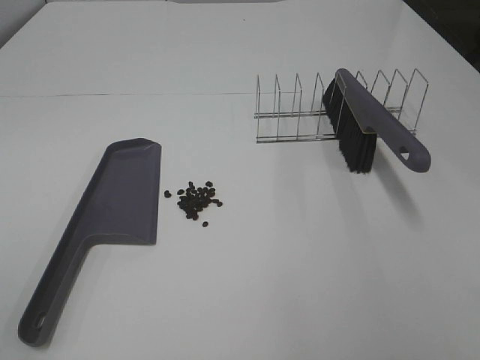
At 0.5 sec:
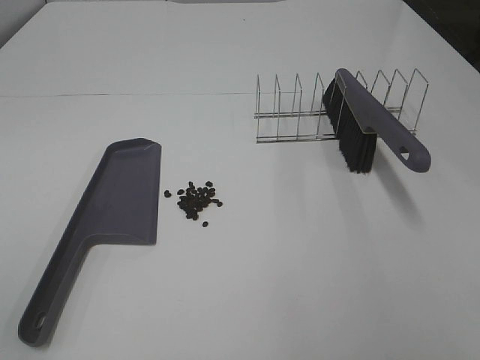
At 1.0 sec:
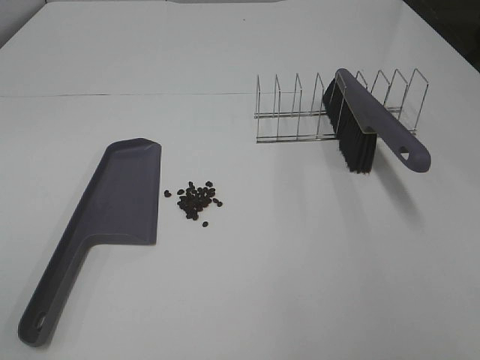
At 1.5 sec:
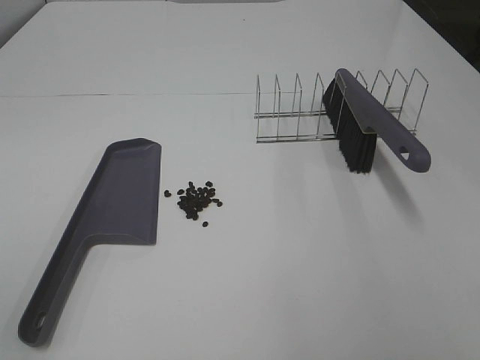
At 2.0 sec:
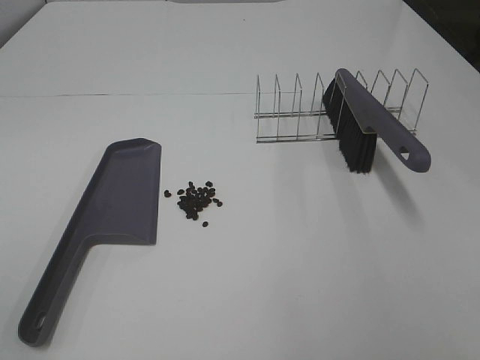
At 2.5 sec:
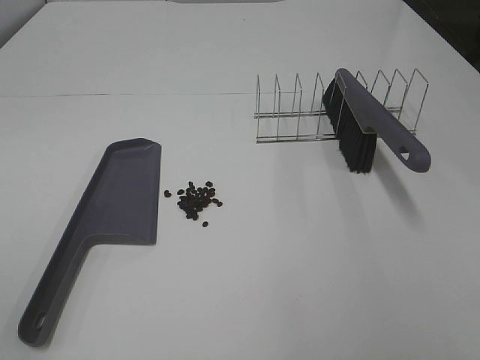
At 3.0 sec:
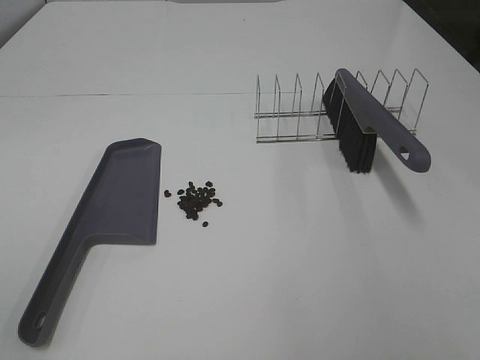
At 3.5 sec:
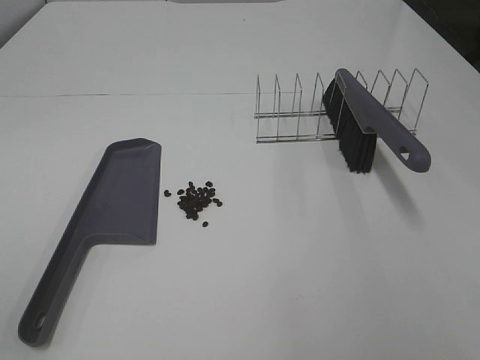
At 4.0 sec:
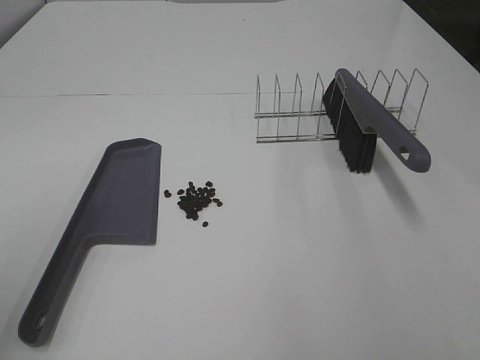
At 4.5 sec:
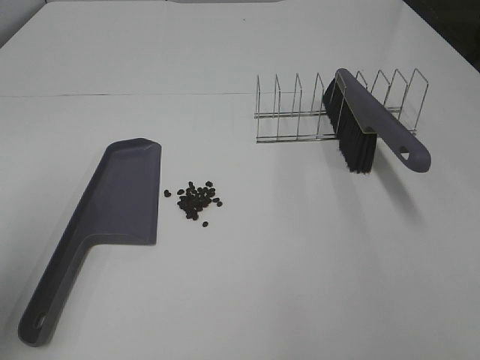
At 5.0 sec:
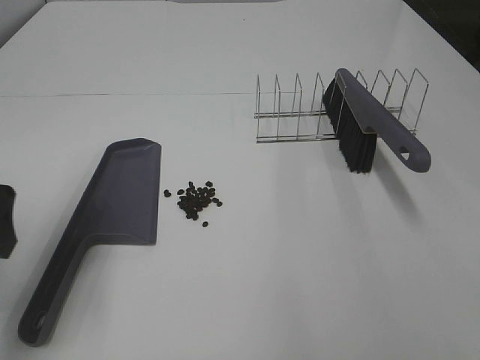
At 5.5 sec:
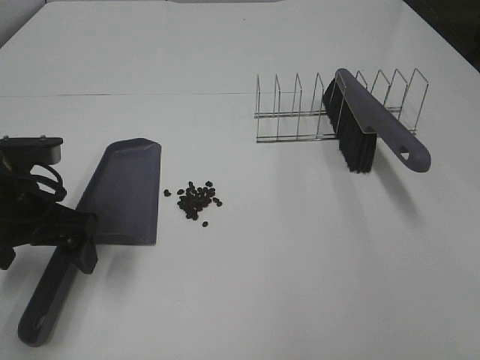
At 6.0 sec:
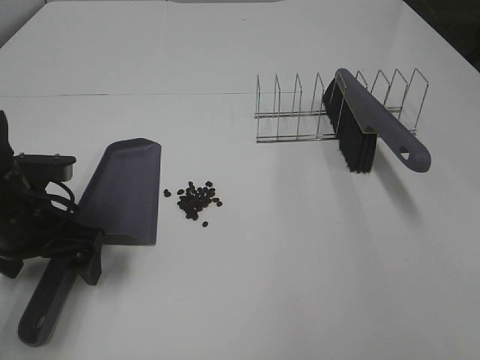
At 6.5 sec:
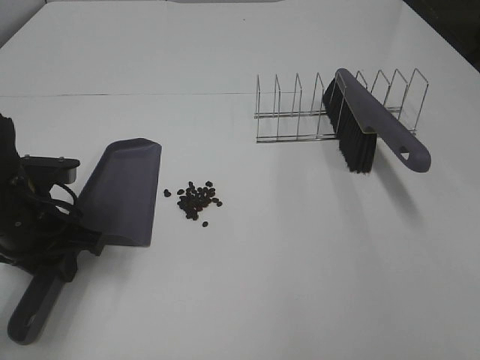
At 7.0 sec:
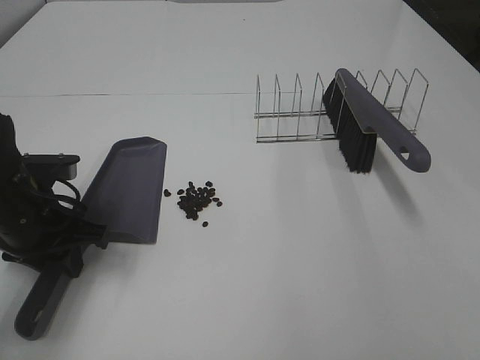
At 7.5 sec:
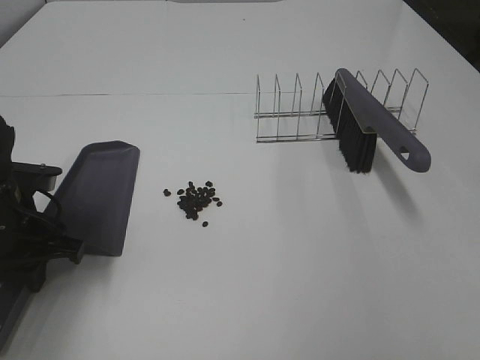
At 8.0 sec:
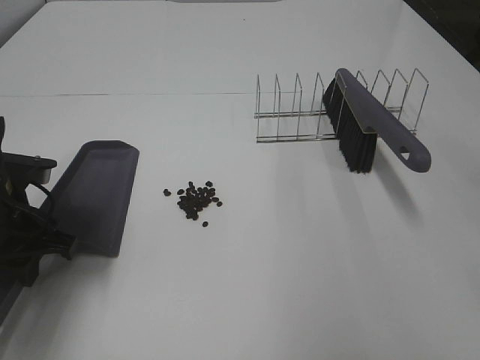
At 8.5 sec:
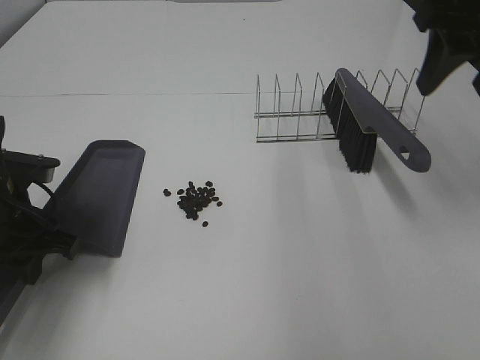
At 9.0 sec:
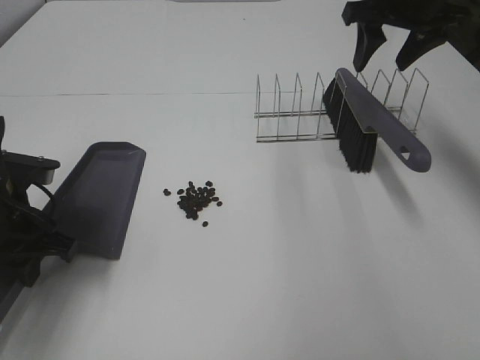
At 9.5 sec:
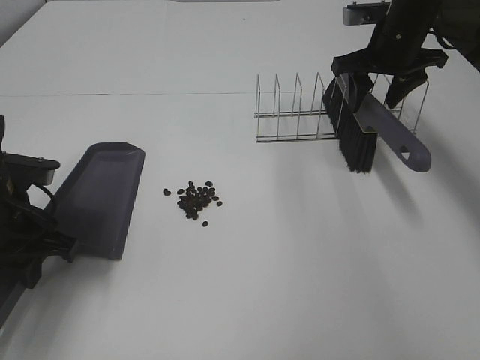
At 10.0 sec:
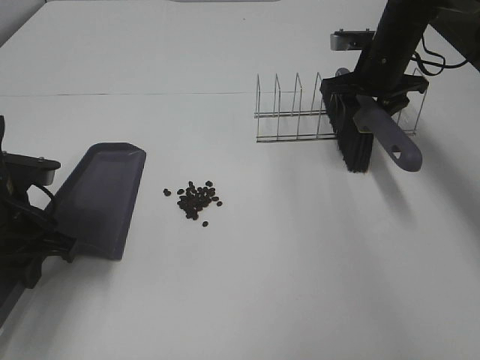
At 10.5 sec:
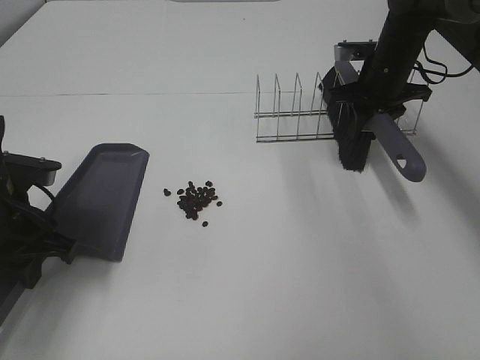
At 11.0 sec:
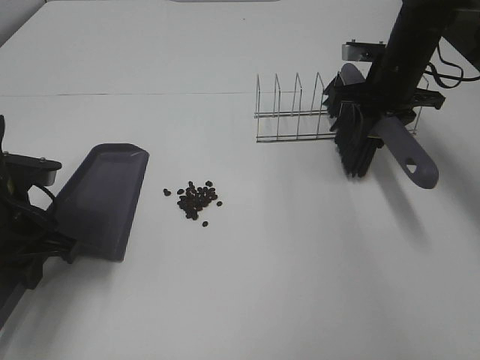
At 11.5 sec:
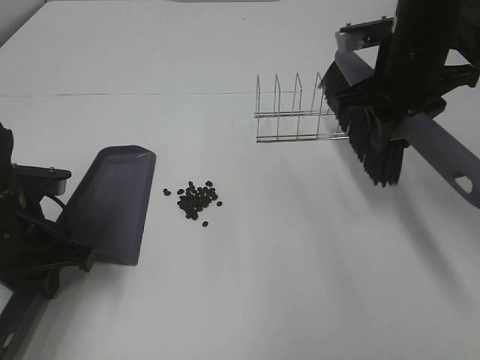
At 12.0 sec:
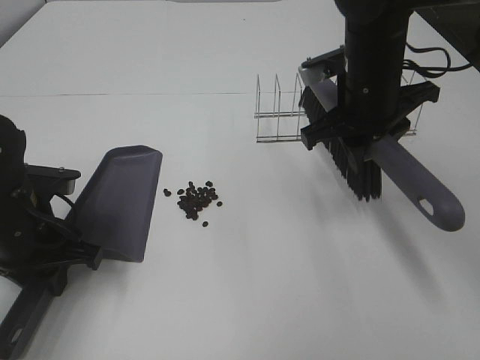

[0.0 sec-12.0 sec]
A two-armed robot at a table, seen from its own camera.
Task of the whole recording: Sweep Coffee Bean.
Step, 0.0 sec to 6.5 sec: Left hand: grab the dustpan.
Step, 7.5 sec to 10.0 sec: Right hand:grab the broom.
0.0 sec to 2.0 sec: Neither gripper changes place.
4.0 sec to 6.0 sec: The left gripper travels downward and forward by about 30 cm.
6.0 sec to 8.0 sec: The left gripper closes its fingers.
8.0 sec to 10.0 sec: The right gripper moves forward and downward, roughly 40 cm.
10.0 sec to 12.0 sec: The right gripper goes some 15 cm backward and to the left, and closes.

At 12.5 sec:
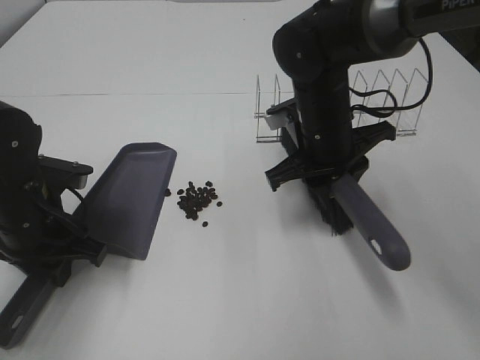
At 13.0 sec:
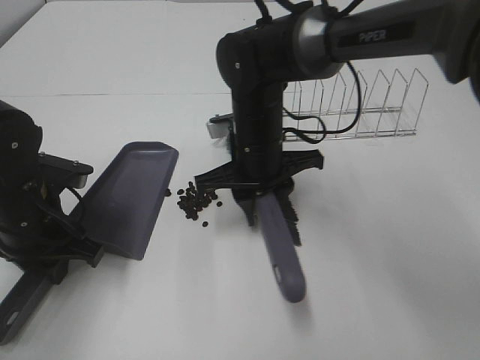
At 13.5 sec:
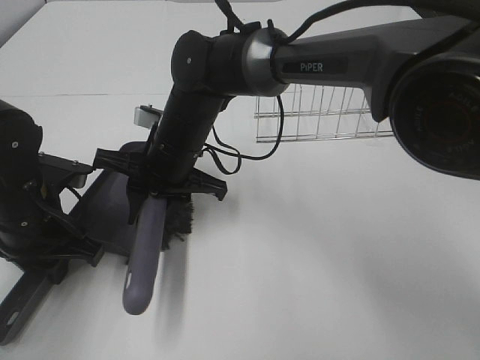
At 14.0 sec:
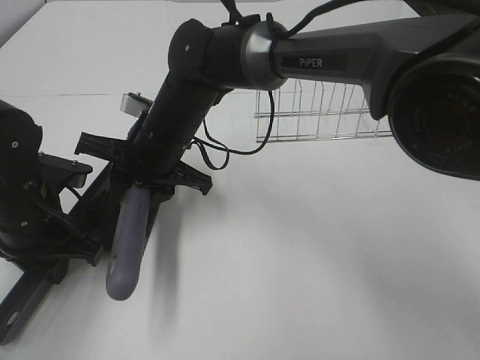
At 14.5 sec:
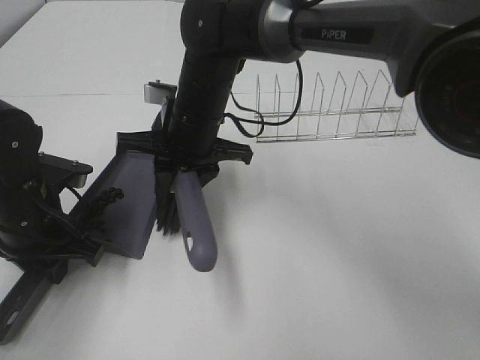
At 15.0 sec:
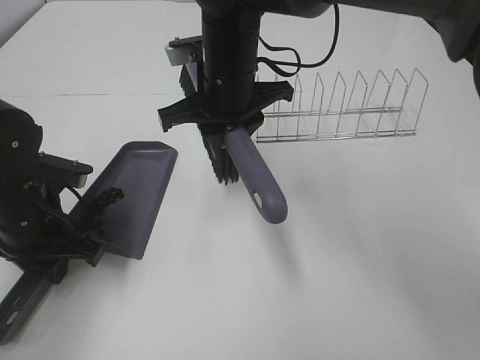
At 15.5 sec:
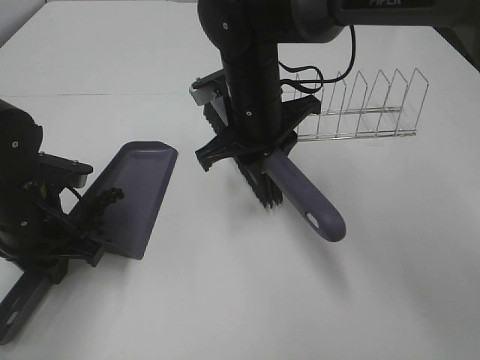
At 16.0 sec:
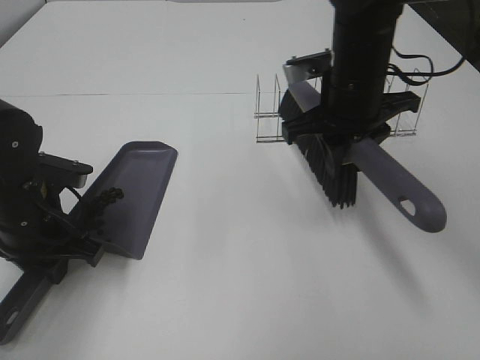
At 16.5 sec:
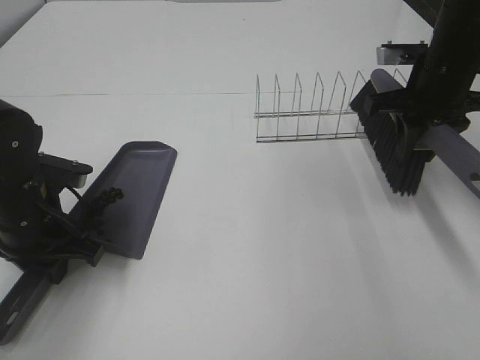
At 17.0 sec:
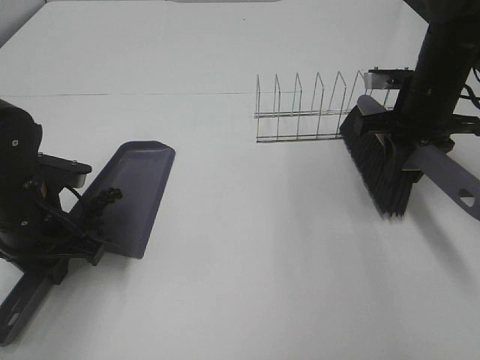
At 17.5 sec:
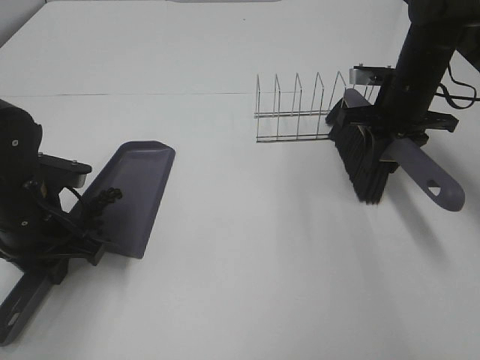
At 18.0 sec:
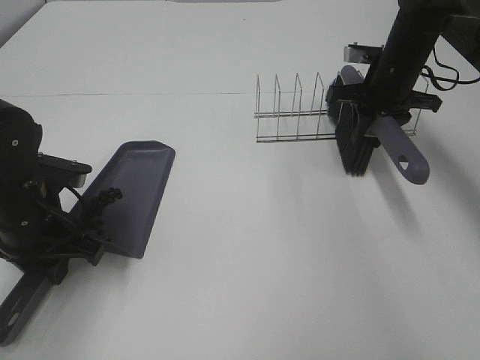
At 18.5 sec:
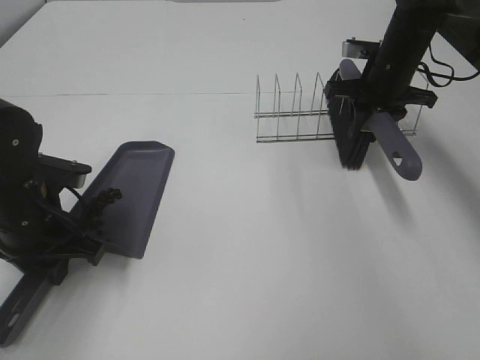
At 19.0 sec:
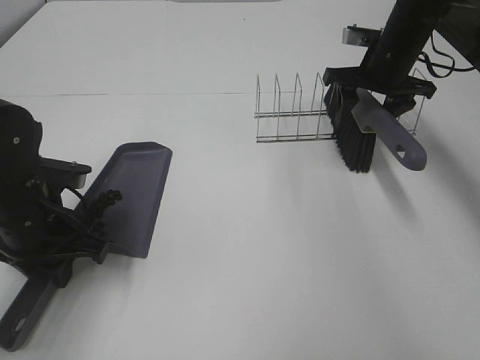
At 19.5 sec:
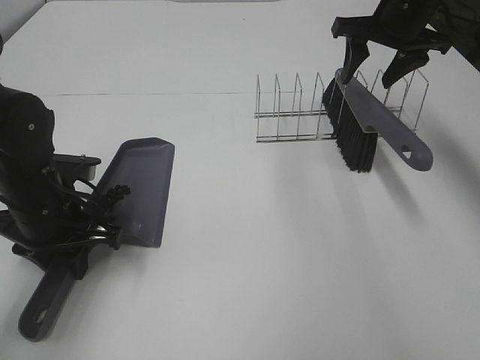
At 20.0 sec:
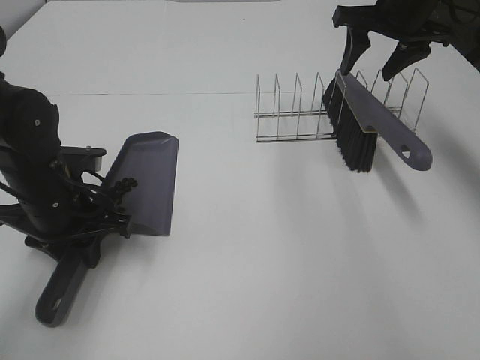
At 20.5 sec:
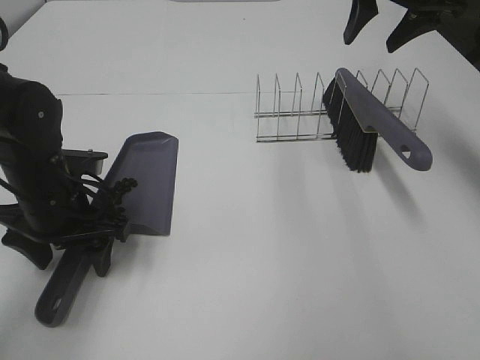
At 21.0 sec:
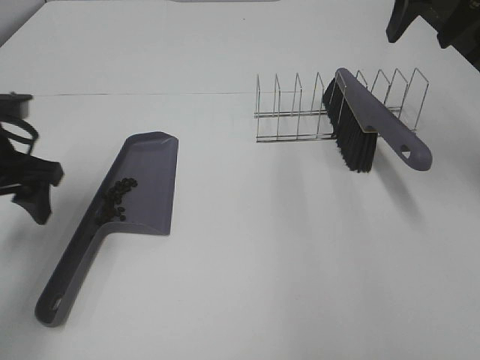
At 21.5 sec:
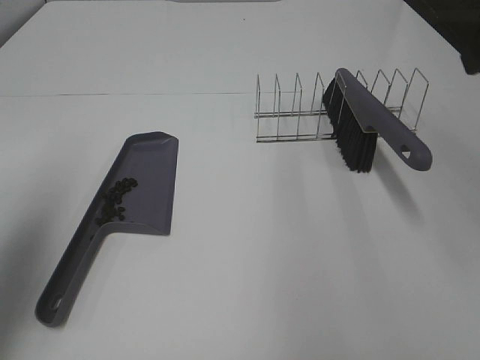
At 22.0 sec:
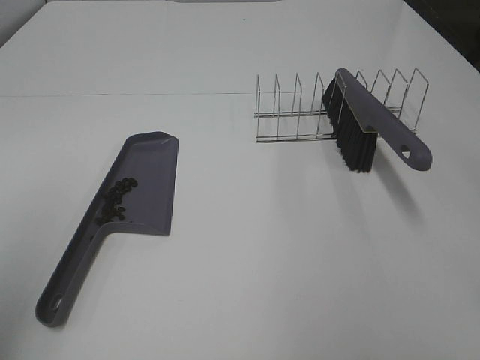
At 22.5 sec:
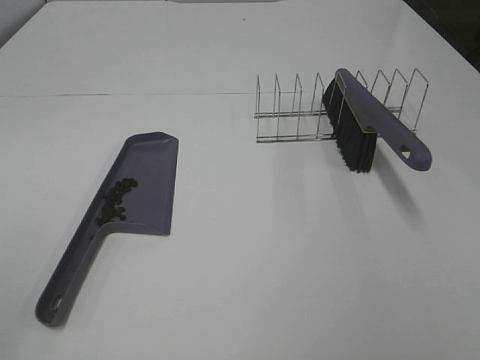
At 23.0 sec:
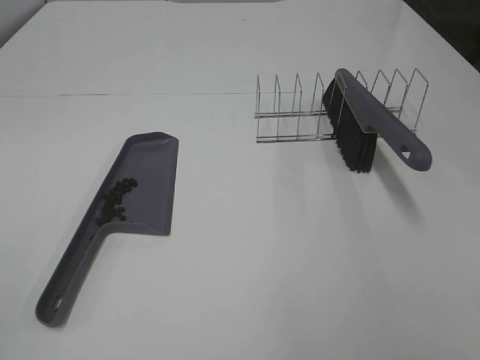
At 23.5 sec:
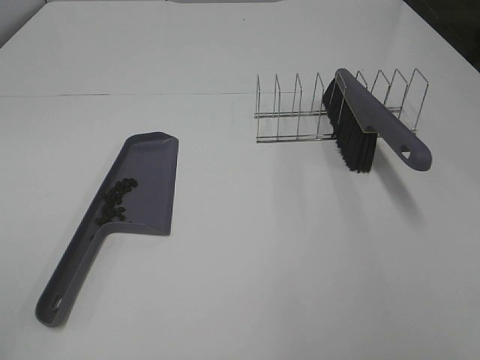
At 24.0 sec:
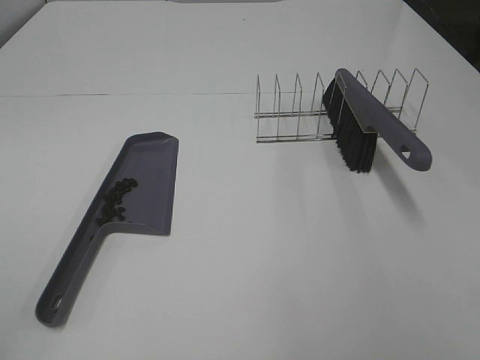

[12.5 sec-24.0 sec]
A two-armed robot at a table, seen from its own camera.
Task of the whole recording: Sweep Coffee Bean.
Step, 14.5 sec to 18.5 sec: Right hand:place the broom on the rack.
Step, 19.0 sec to 20.5 sec: Left hand:place the dustpan on the table.
12.5 sec to 14.5 sec: The right gripper heads to the left, covering approximately 15 cm.
14.5 sec to 16.5 sec: The right gripper shifts about 30 cm to the right.
16.5 sec to 18.5 sec: The right gripper heads forward, covering about 10 cm.
18.5 sec to 20.0 sec: The right gripper goes about 10 cm upward, and opens its fingers.
20.0 sec to 22.0 sec: The right gripper goes about 35 cm backward. Meanwhile the left gripper is displaced upward, backward and to the left by some 35 cm, and opens its fingers.
22.0 sec to 24.0 sec: The left gripper is displaced backward and downward by roughly 10 cm.

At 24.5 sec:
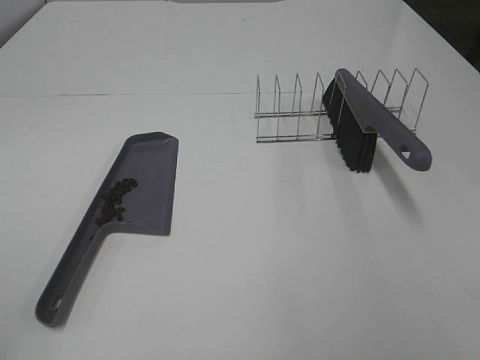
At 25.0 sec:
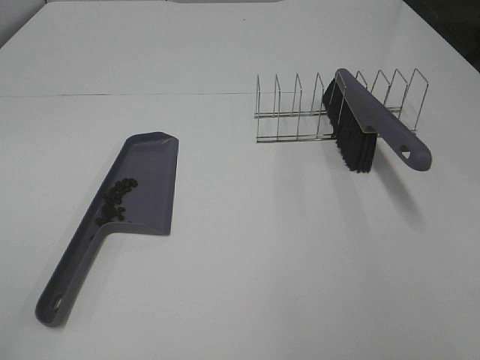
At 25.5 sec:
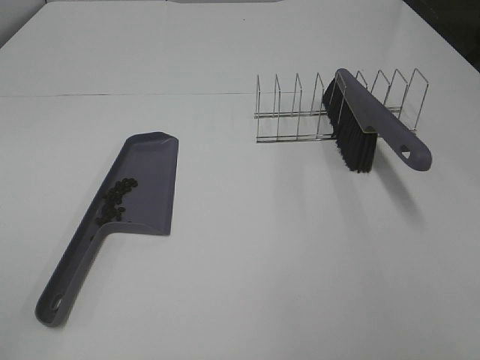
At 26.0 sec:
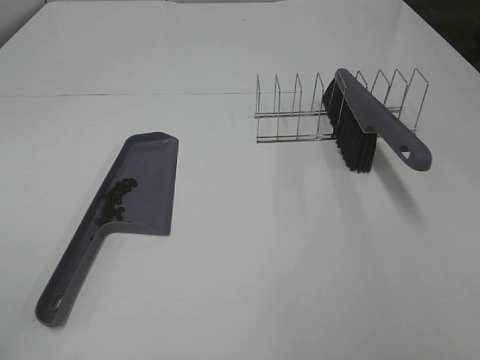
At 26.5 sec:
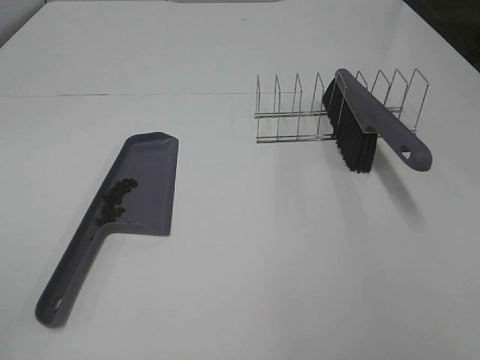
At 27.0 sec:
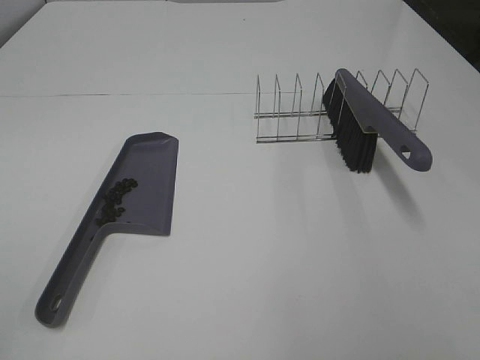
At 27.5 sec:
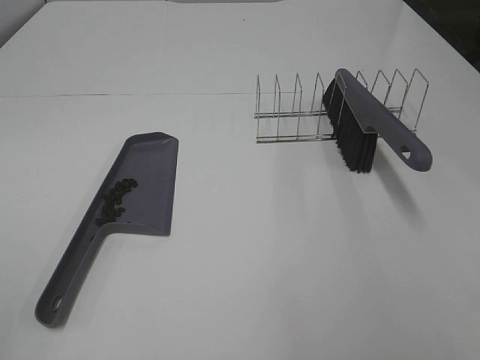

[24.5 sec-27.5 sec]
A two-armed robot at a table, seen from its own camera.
Task of the whole recording: Sweep Coffee Bean.
24.5 sec to 27.5 sec: Both grippers stay put.
